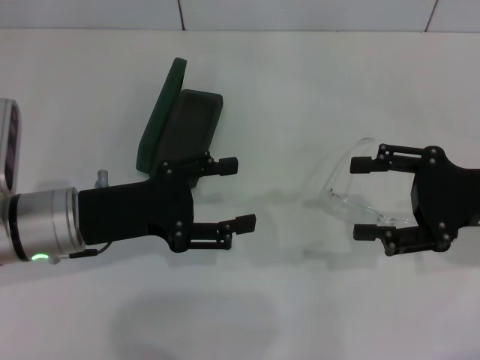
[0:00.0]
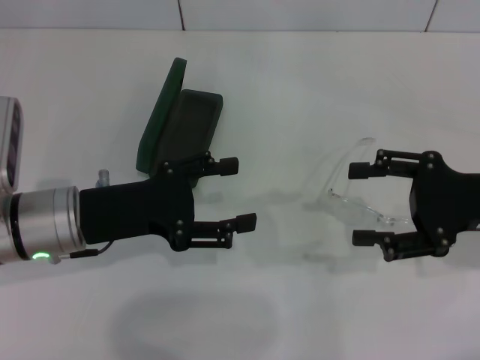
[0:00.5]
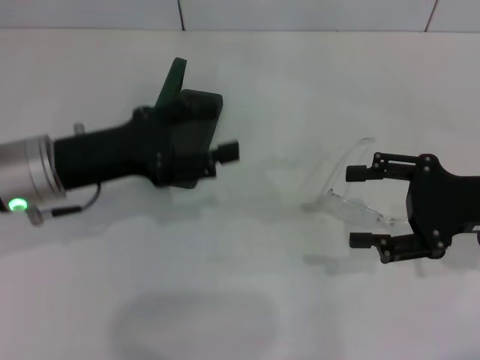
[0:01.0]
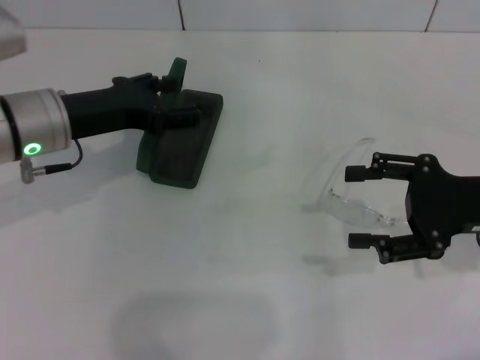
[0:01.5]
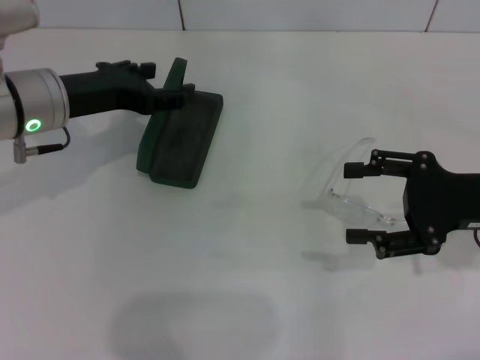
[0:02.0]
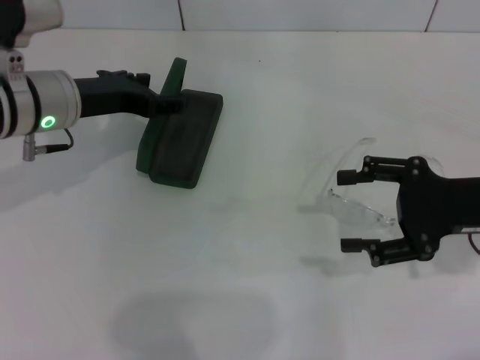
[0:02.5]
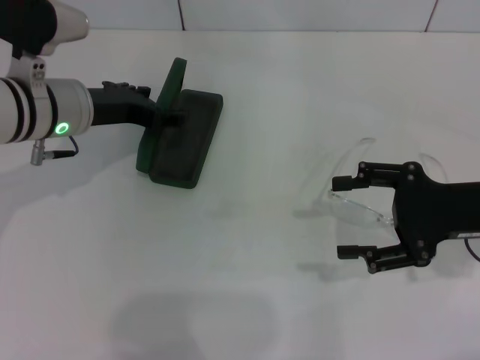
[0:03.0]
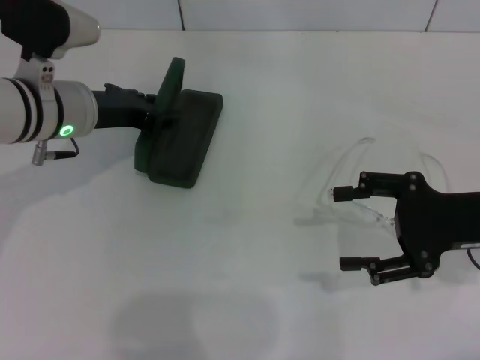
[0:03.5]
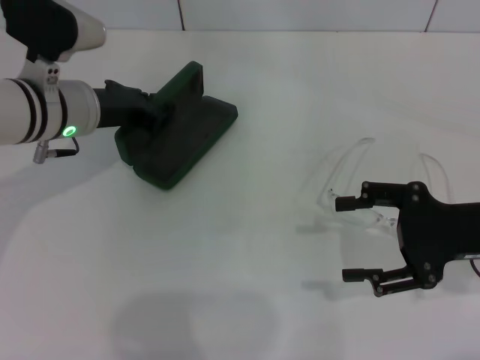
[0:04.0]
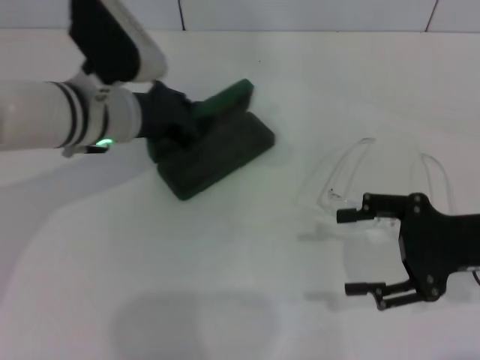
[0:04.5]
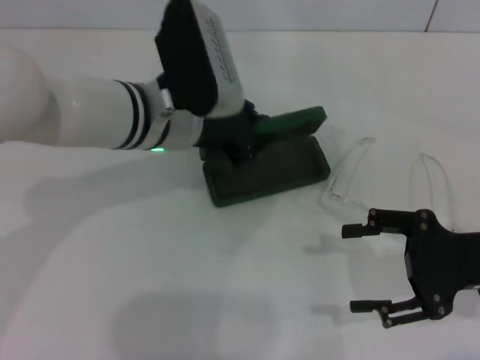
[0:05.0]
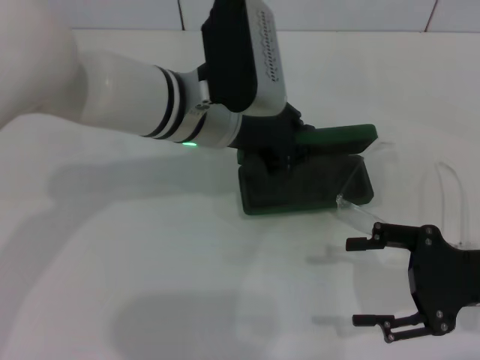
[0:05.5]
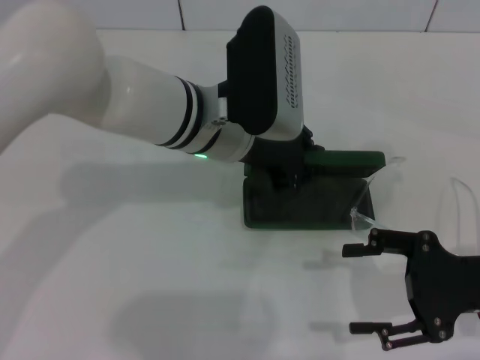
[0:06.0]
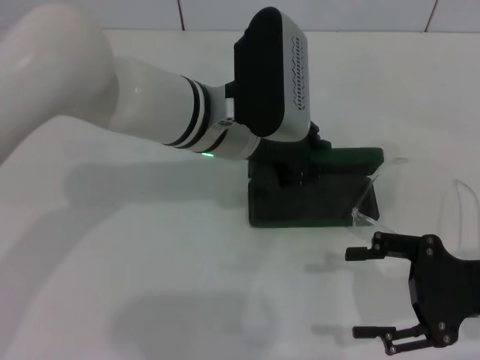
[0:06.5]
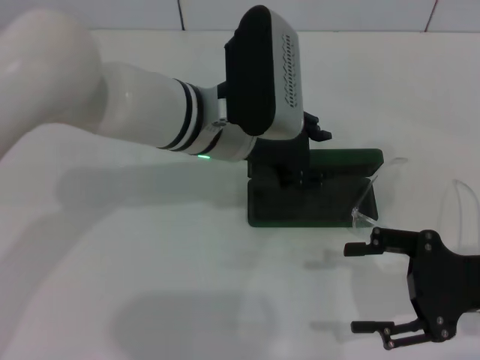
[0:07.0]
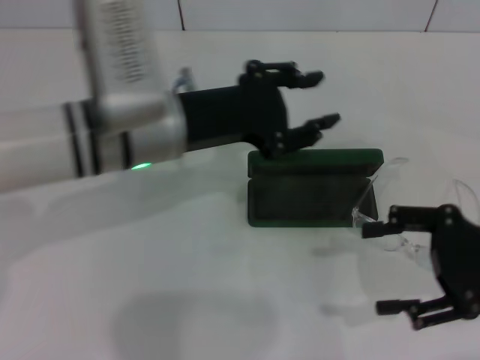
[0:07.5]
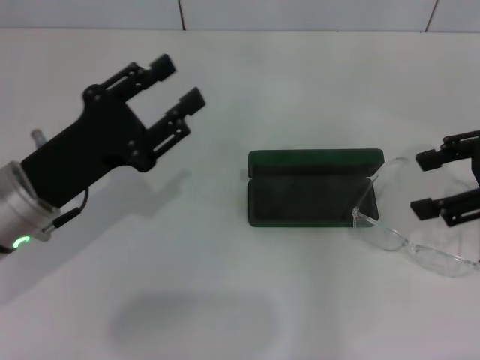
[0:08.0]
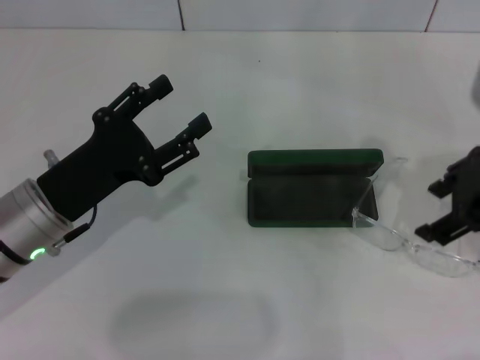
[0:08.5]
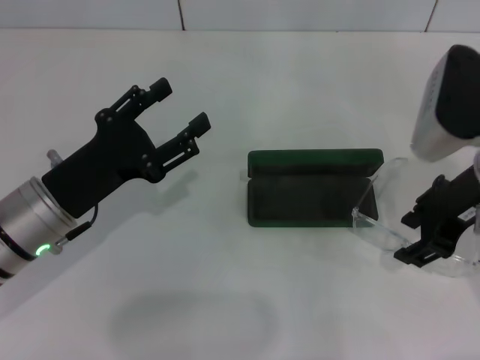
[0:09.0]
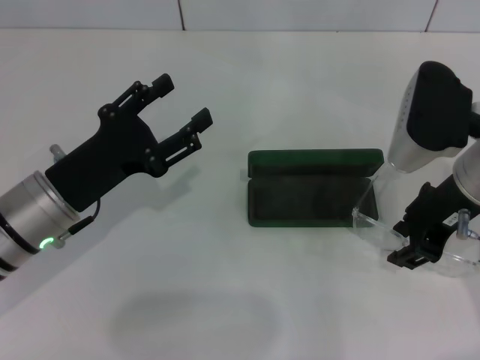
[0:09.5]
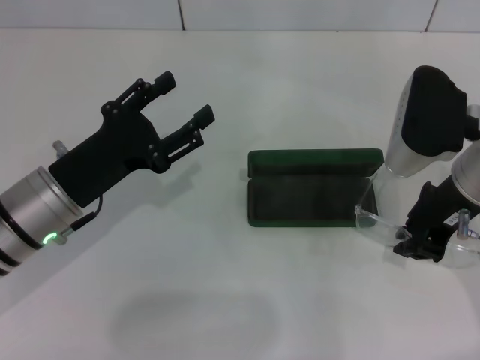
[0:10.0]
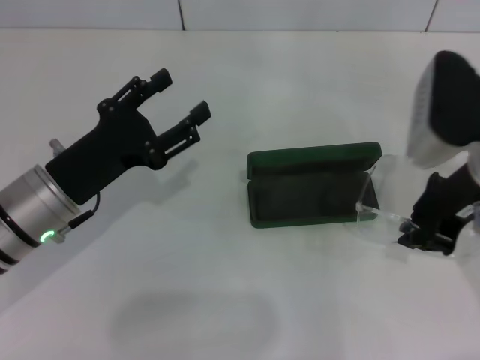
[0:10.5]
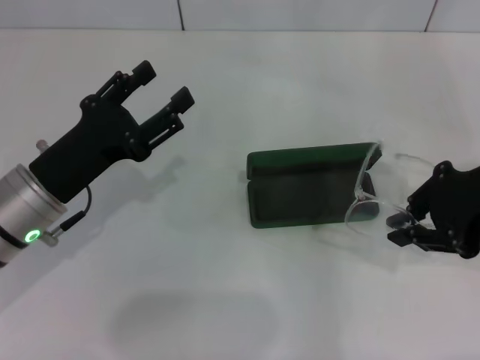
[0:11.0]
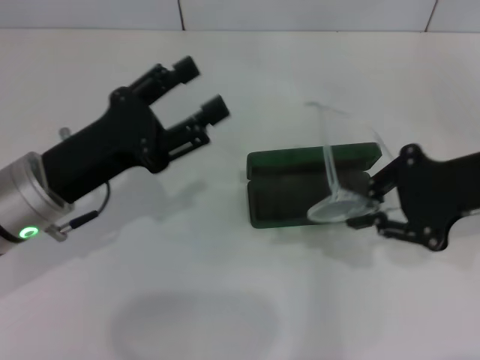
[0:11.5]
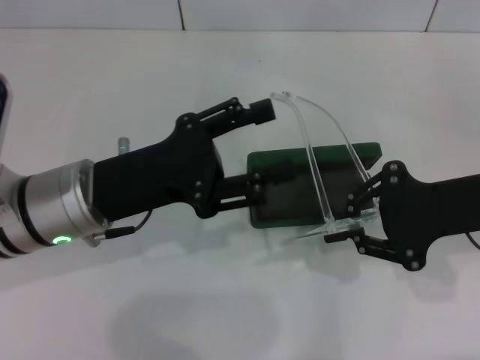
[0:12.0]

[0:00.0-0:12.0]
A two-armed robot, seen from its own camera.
Step, 0:00.0 to 0:03.5: Grab the glasses case with your left hand.
Step, 0:04.0 to 0:06.5: Place the glasses case in the center of the table with your left hand.
Step, 0:07.0 to 0:10.0: Grab the eyeglass frame with your right hand.
0:00.0 to 0:02.0: The left gripper heads forward and upward, covering approximately 10 cm.
0:02.0 to 0:04.0: The left gripper closes up.
0:04.0 to 0:06.0: The left gripper heads to the right, covering roughly 15 cm.
0:06.0 to 0:08.0: The left gripper heads to the left and backward, covering some 20 cm, and opens; the right gripper moves upward, some 15 cm.
0:08.0 to 0:10.0: The right gripper moves to the left and downward, roughly 10 cm, and closes up. The left gripper opens.
0:10.0 to 0:12.0: The left gripper changes place by some 5 cm, while the right gripper goes some 5 cm to the right, and closes up.

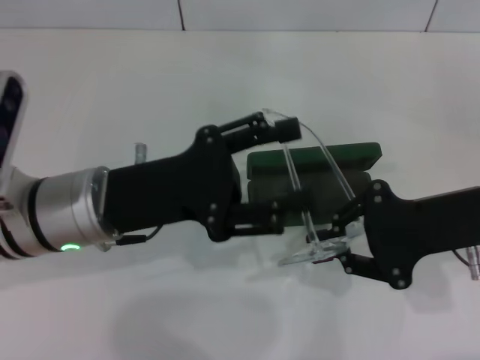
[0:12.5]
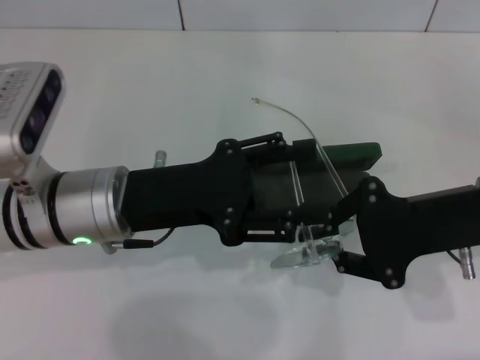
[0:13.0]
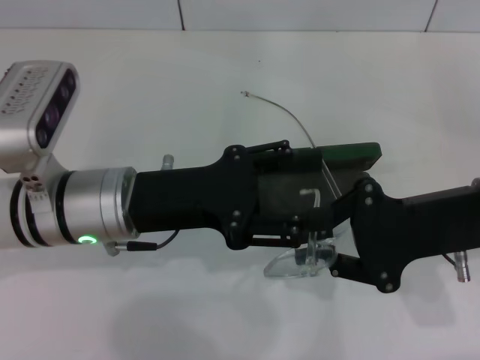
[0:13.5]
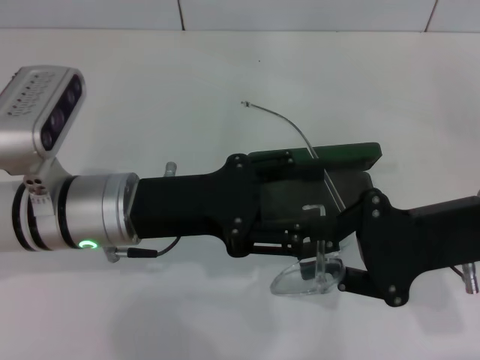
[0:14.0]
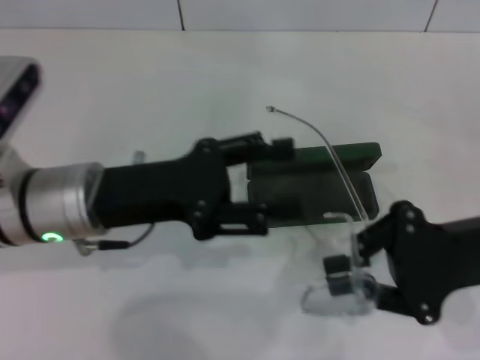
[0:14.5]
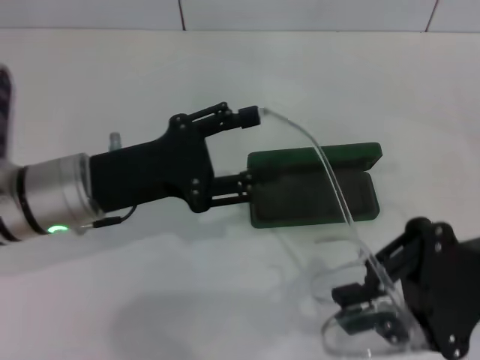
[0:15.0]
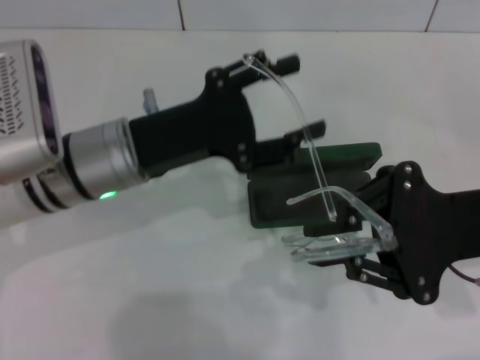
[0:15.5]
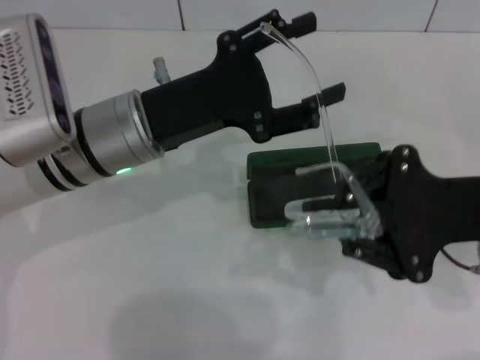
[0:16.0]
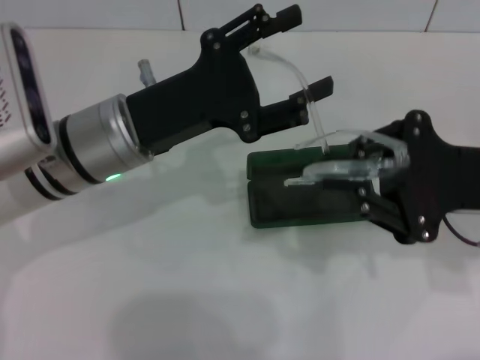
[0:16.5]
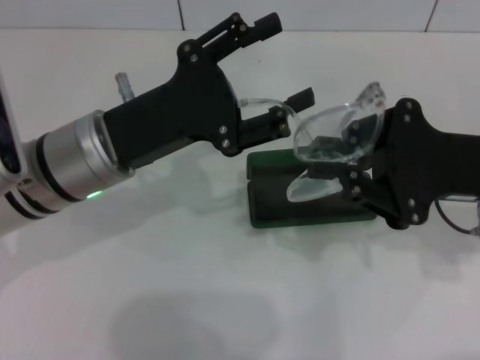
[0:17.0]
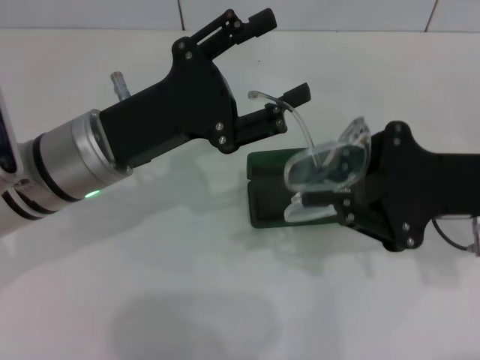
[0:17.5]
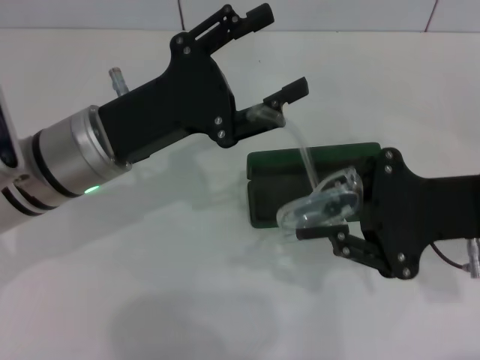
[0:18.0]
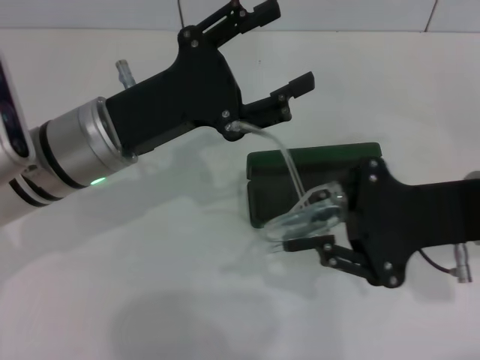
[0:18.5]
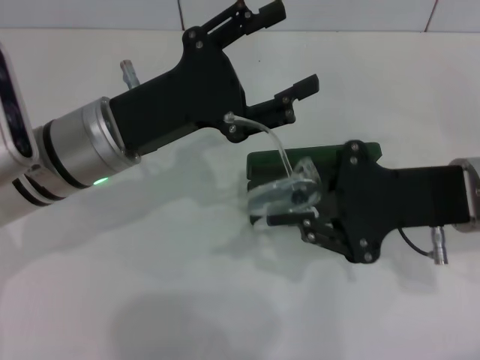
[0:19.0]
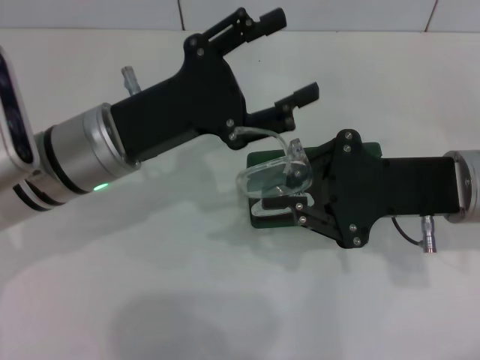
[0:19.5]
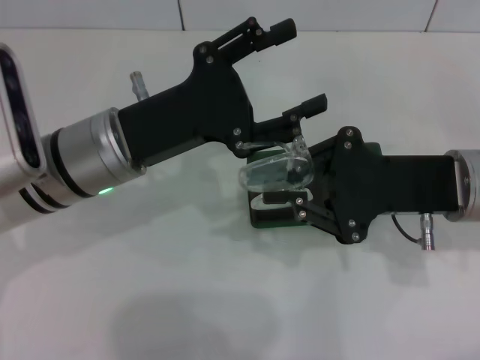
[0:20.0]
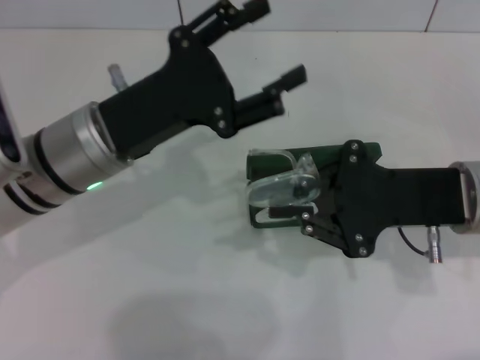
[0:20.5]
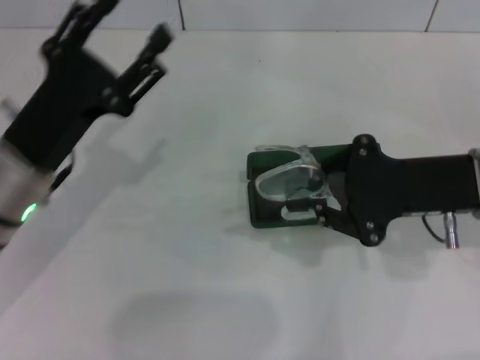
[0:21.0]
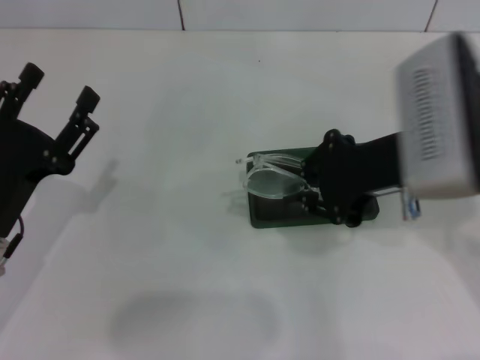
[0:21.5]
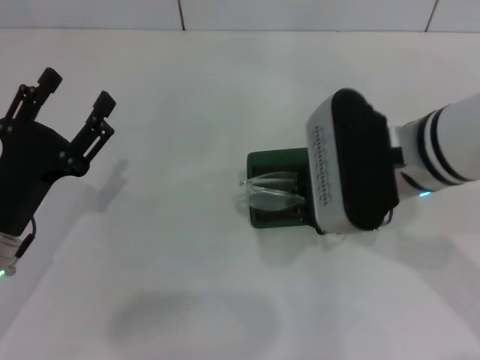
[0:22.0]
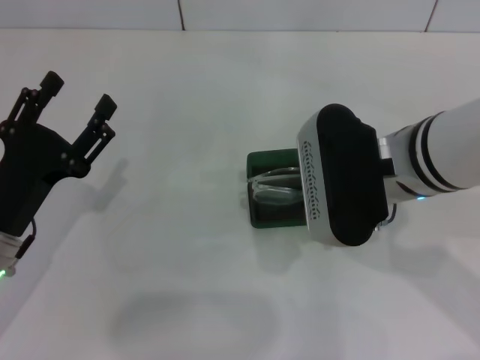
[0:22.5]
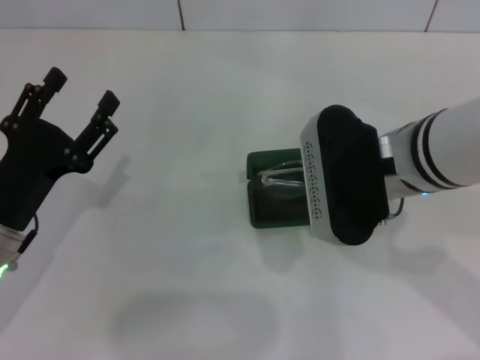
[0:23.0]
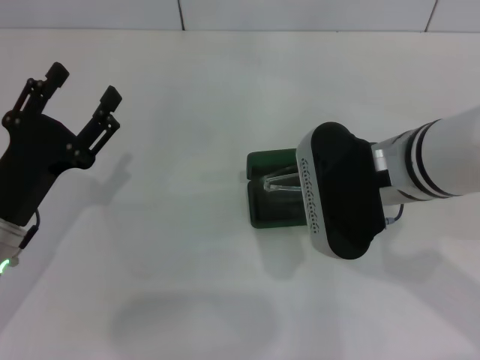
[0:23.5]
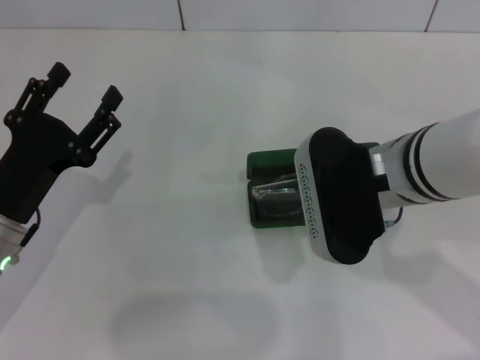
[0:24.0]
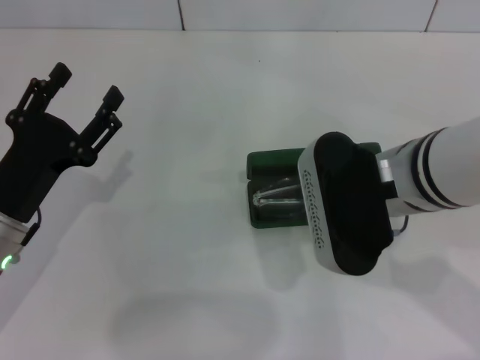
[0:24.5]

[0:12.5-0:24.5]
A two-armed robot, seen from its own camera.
Step, 0:12.5 to 0:20.0: Fold the frame with your left hand.
Step, 0:20.5 to 0:24.0: Put the glasses into the case with your right hand.
0:12.5 to 0:14.5: The grippers move only a little.
0:18.5 to 0:20.5: The grippers make only small movements.
0:20.5 to 0:22.5: The left gripper is displaced to the left, downward and backward by approximately 15 cm. The right gripper moves to the left, some 10 cm.
0:22.5 to 0:24.5: The grippers stay close to where they were, moving slightly.

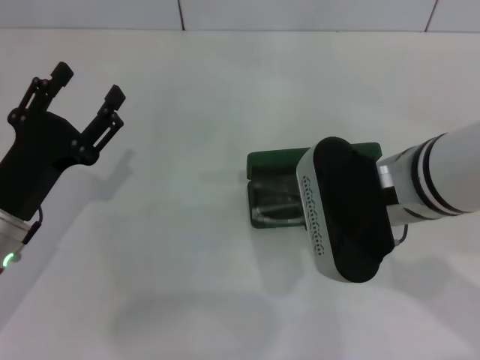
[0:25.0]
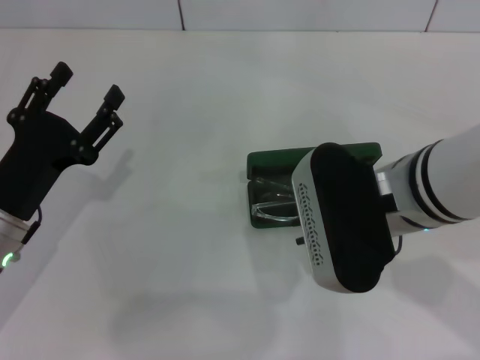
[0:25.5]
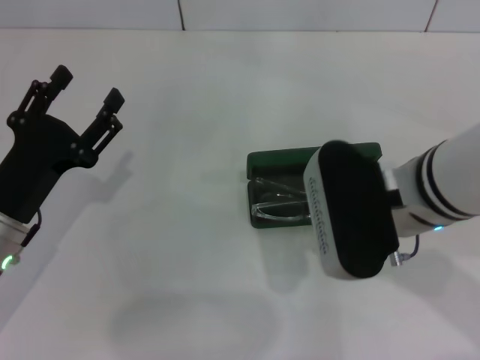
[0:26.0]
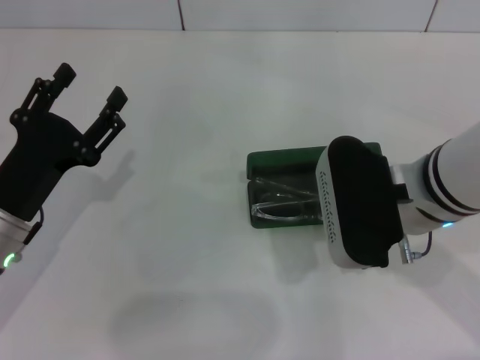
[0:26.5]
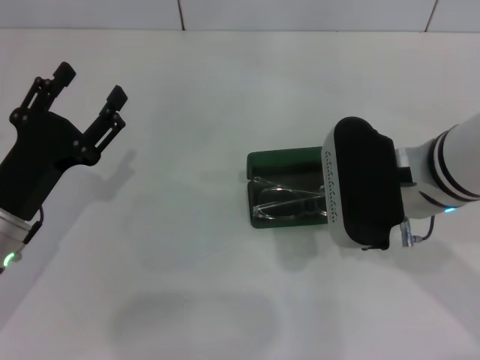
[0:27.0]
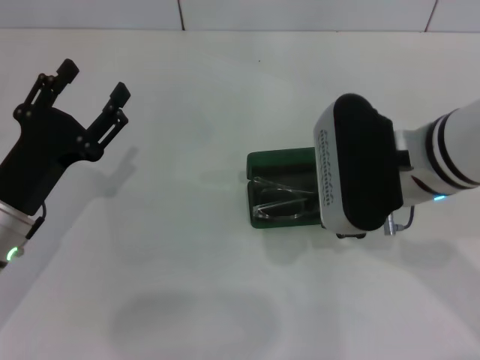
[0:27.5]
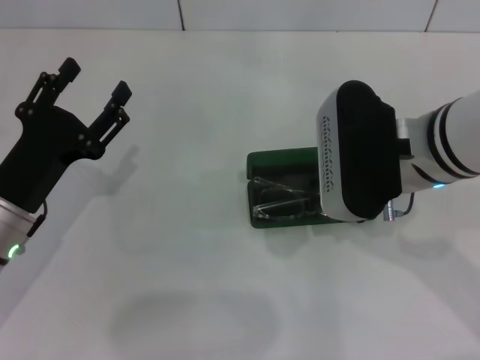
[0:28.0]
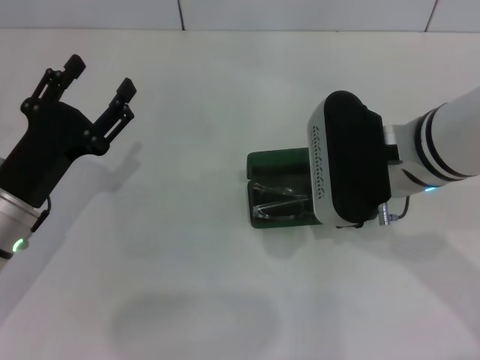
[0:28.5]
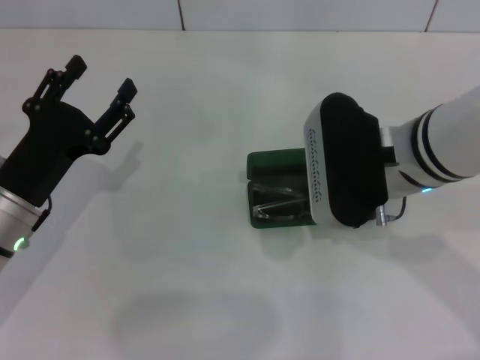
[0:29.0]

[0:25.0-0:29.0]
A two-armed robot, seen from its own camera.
0:25.0 to 0:29.0: The grippers move only a little.
